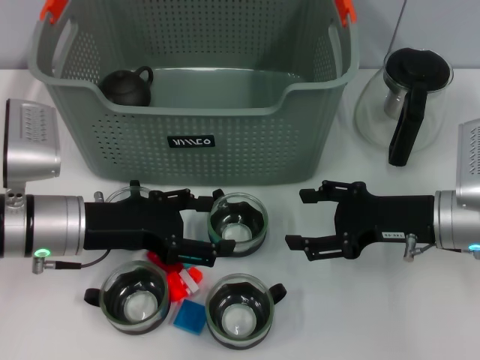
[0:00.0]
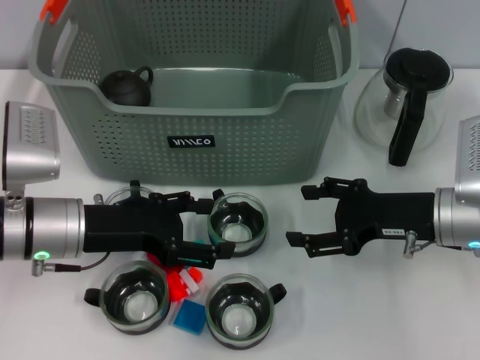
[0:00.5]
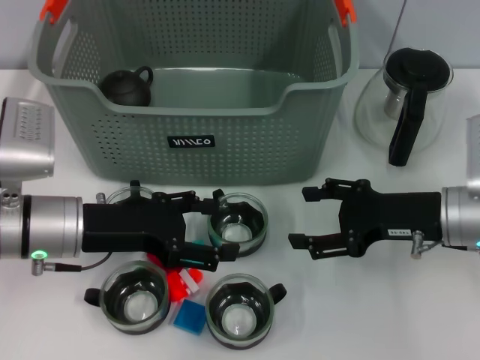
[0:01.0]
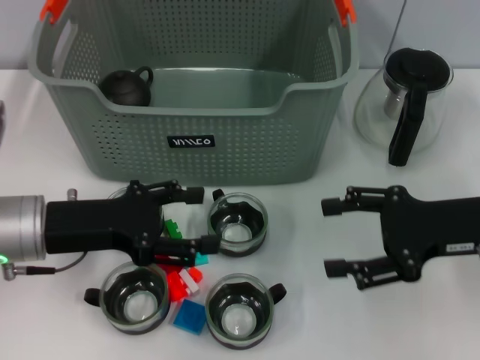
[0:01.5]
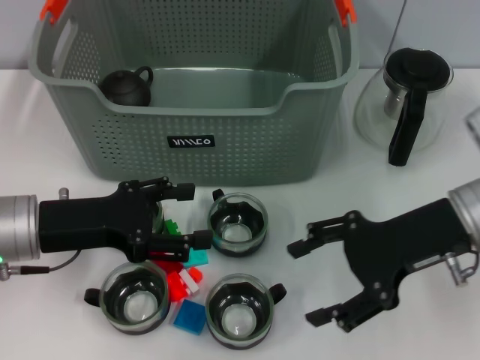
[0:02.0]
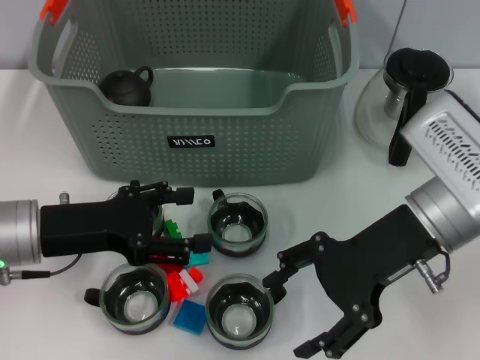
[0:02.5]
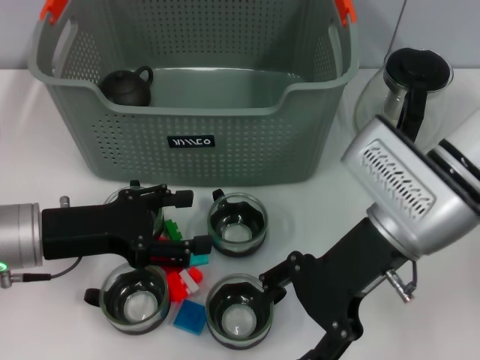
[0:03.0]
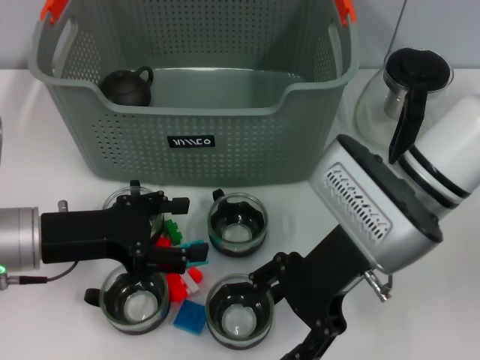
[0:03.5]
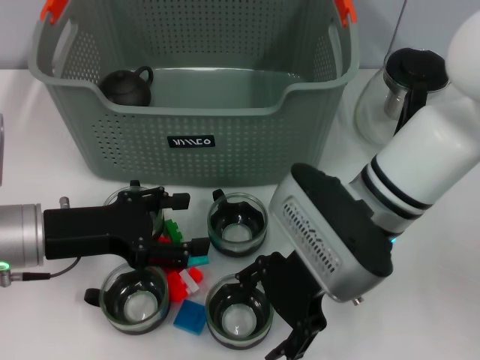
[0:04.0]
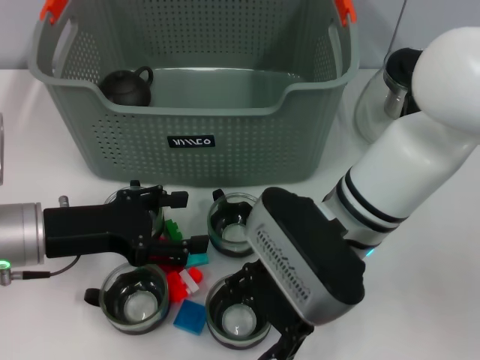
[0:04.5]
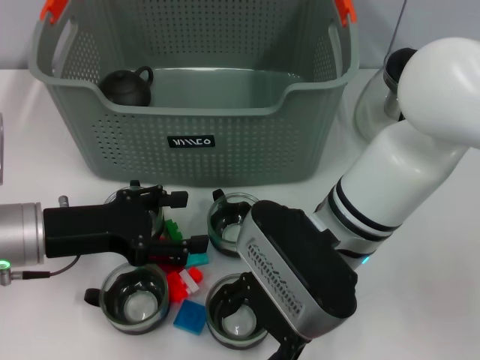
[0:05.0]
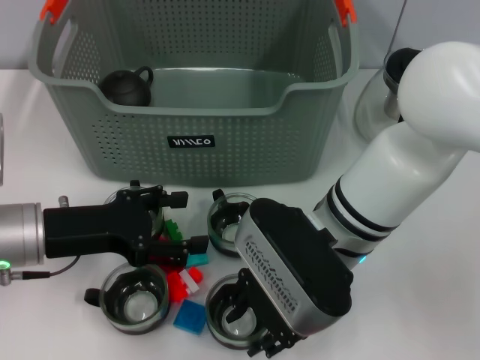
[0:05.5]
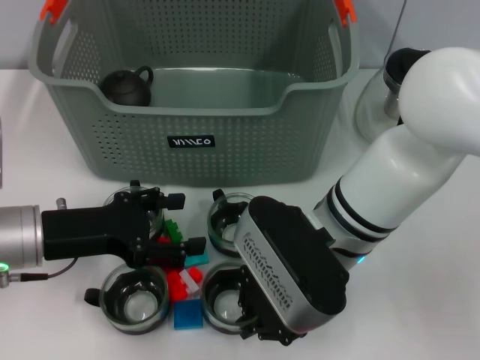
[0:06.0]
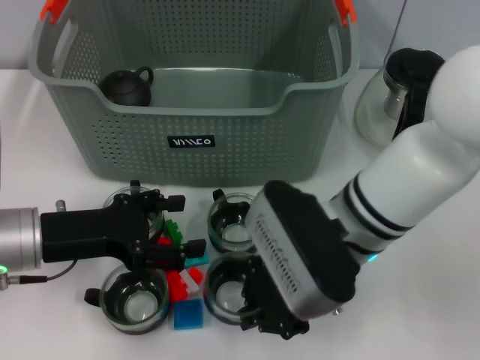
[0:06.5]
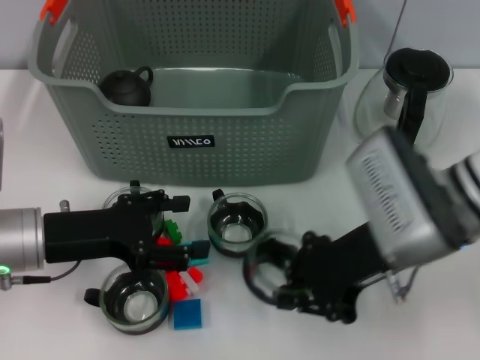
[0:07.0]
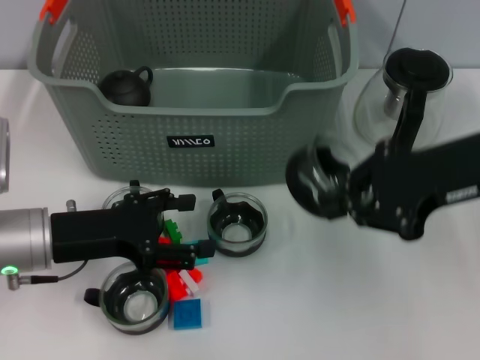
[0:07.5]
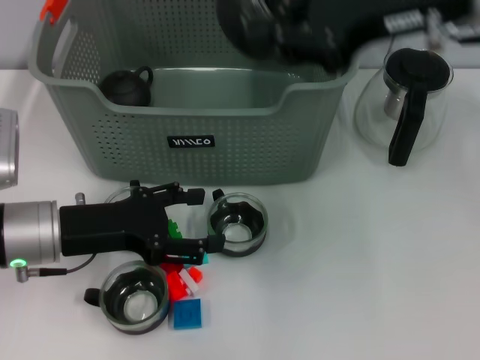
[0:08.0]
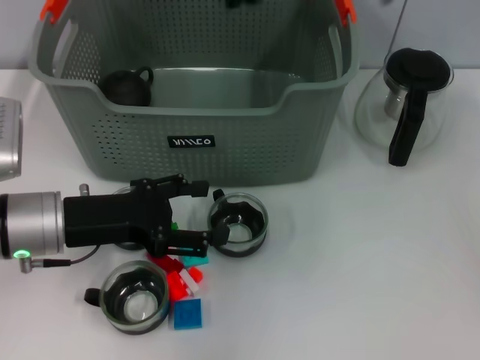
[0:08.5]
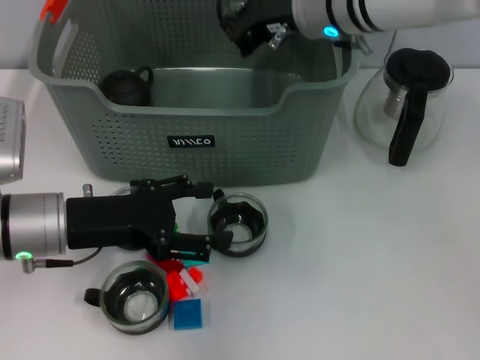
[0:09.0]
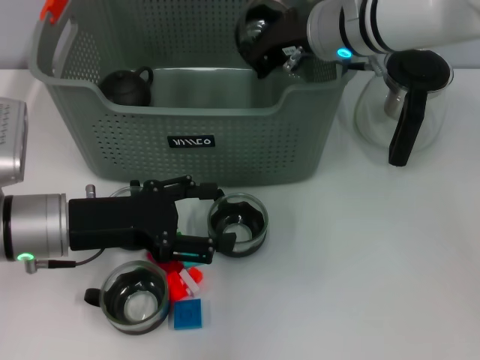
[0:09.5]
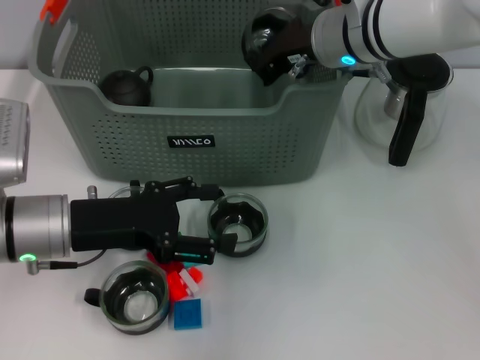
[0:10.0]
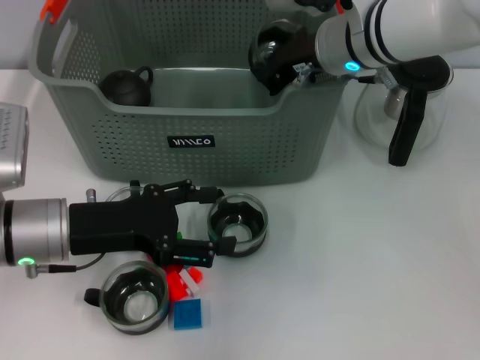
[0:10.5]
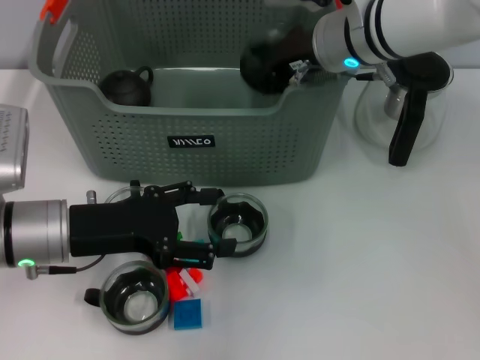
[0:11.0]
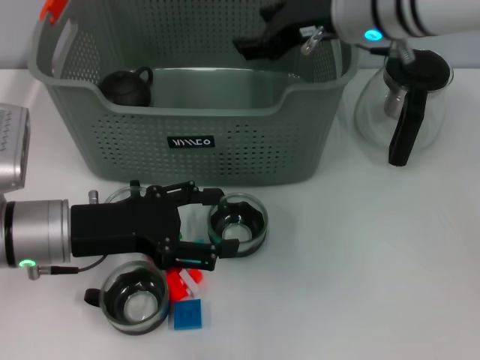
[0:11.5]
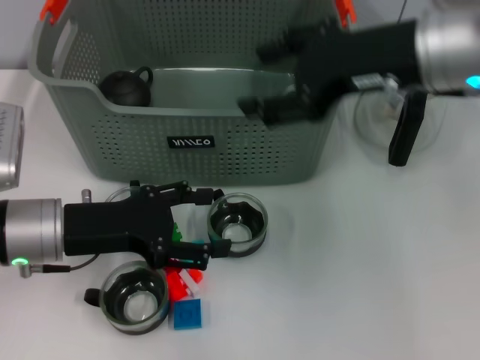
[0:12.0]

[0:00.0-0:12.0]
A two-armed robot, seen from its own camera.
Task of the whole recording: pick up the teacup on the table and place it into the storage bin, pick up the block on the table and place it into the storage bin.
Step, 0.0 to 6.0 s: Grasp the cup with right gripper.
Step, 6.5 to 11.0 s: Place the cup in the storage box with right gripper.
0.0 to 2.0 s: The right gripper moves upward, about 5 cm.
2.0 to 4.0 s: The right gripper shifts some 10 cm to the left.
4.0 to 6.0 s: The right gripper closes up.
6.0 to 8.0 s: The right gripper is displaced upward and to the right by approximately 20 cm.
8.0 to 10.0 s: The right gripper shifts some 15 cm downward, forward and to the left.
10.0 to 12.0 s: The right gripper heads backward, upward and to the right, covering some 15 cm, and opens.

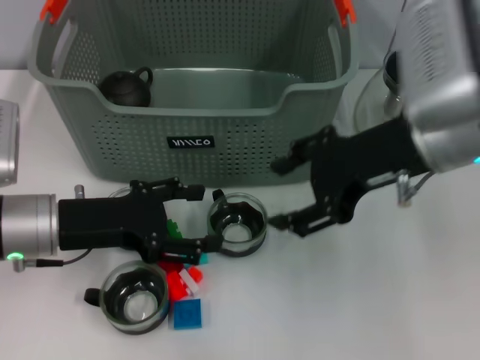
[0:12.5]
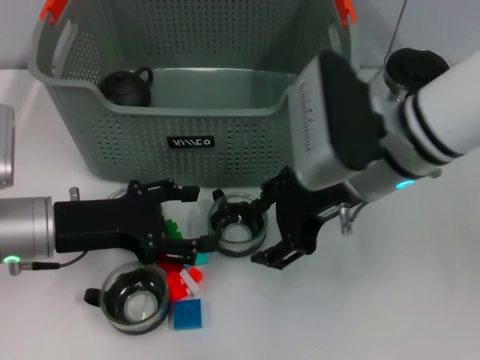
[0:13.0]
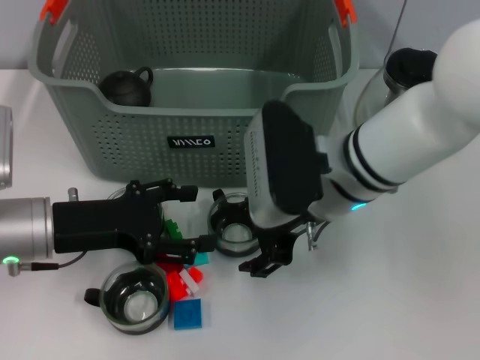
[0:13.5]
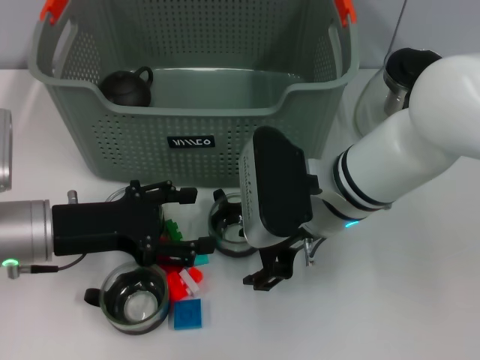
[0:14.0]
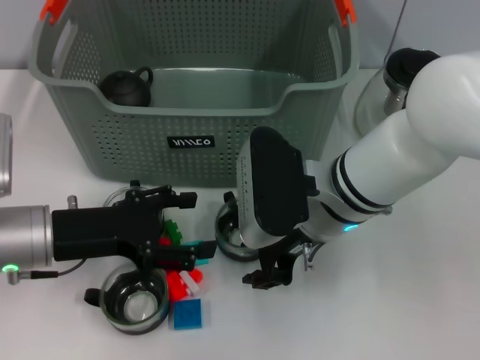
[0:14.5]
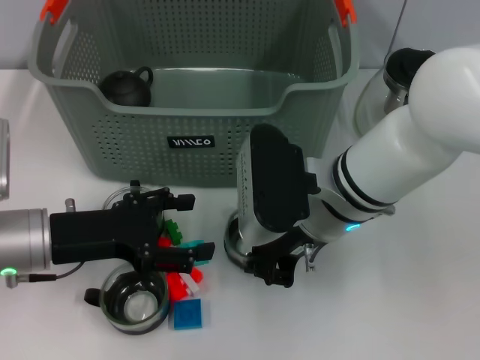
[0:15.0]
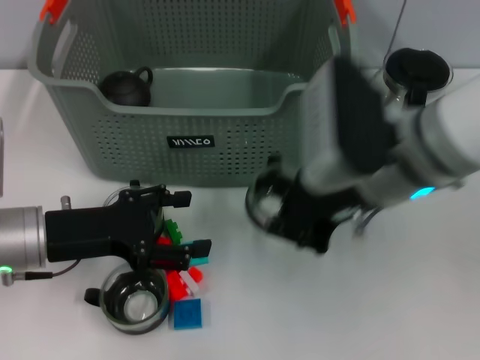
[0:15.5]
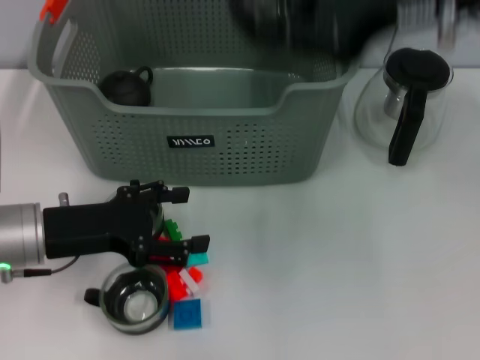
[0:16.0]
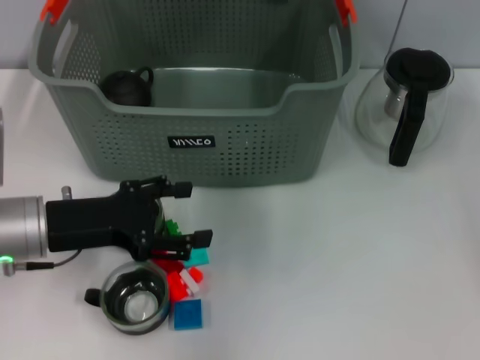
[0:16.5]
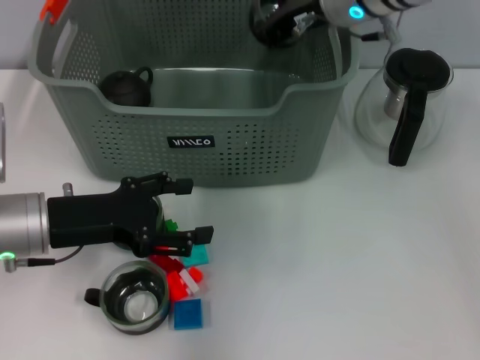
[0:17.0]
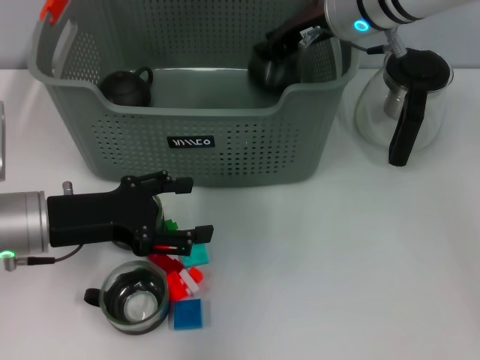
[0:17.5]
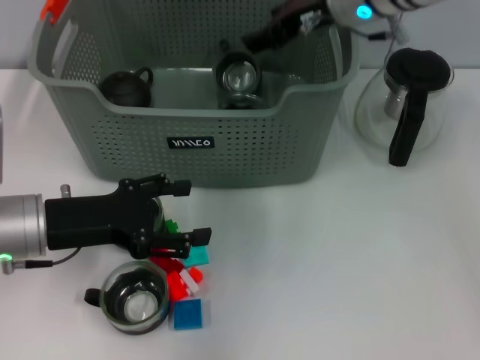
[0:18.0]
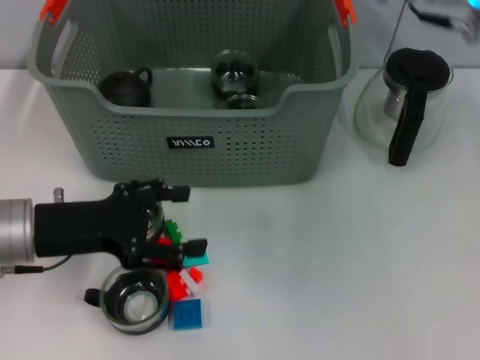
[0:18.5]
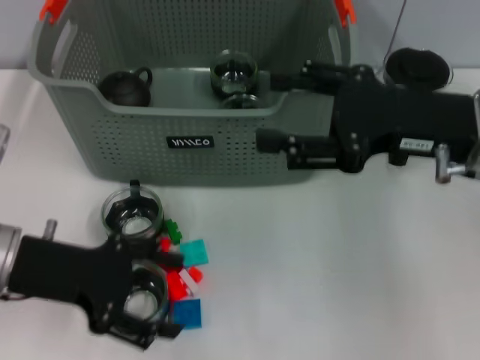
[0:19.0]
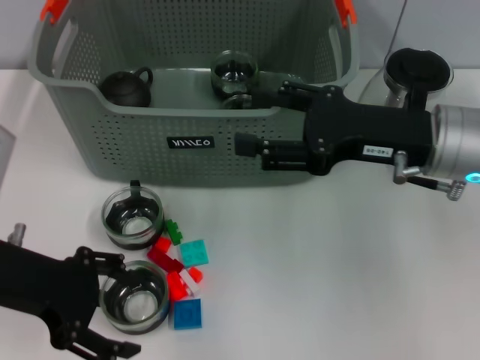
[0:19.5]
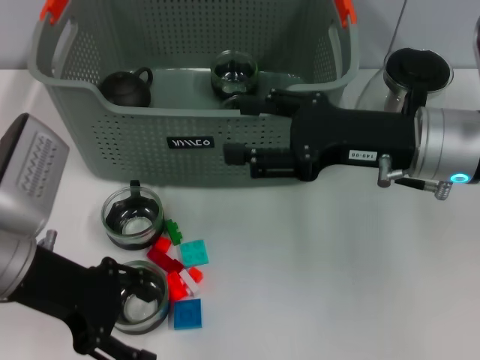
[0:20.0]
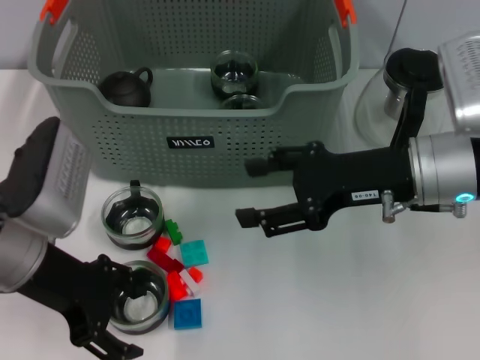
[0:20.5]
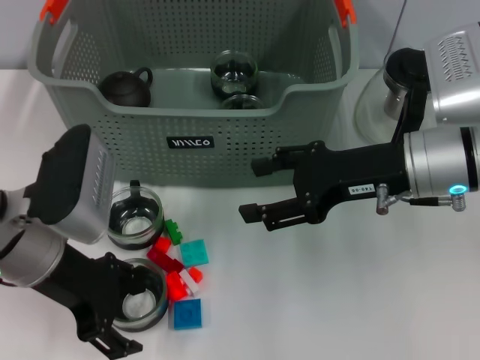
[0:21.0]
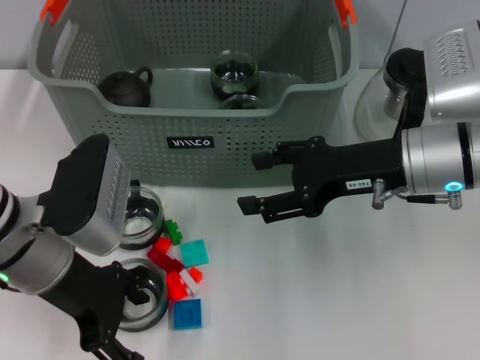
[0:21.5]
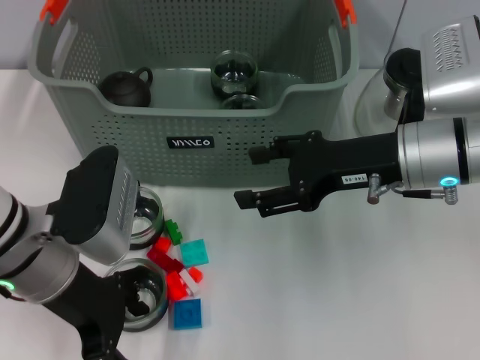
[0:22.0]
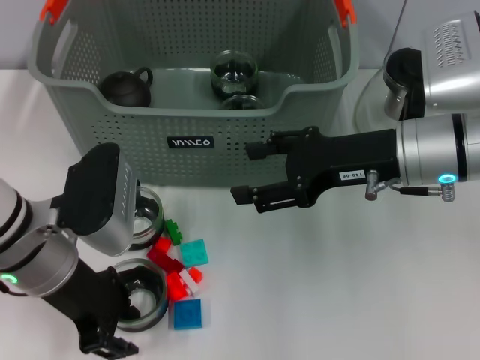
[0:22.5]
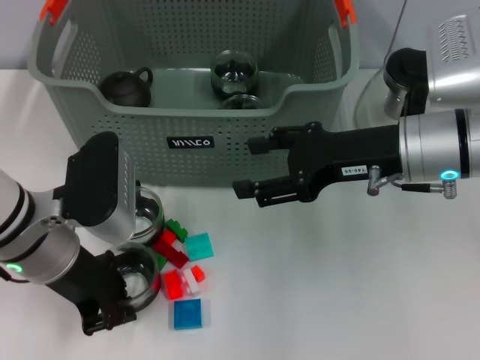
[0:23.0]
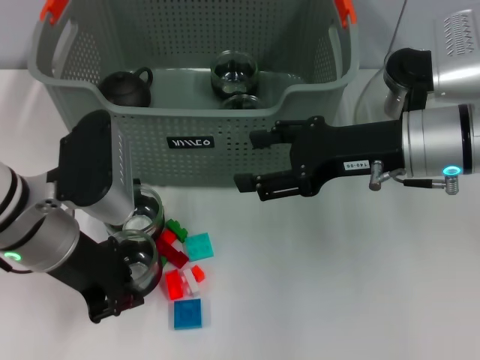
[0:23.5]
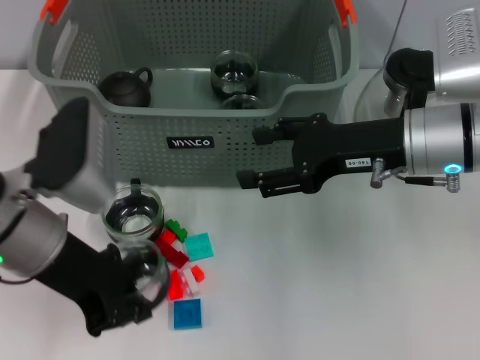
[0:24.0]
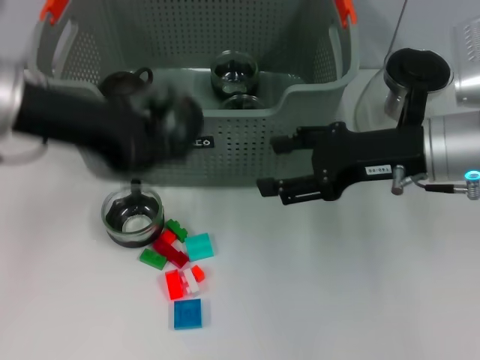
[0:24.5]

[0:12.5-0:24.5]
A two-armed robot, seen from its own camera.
Task of the whole recording: pick up the teacup on the table and place it into the storage bin, pick up the block on the table and place it into the storage bin.
Step, 12.5 to 15.0 s: Grasp the cup with right gripper.
Step, 15.5 to 17.5 s: Place the cup in the storage box with right gripper.
Step, 18.0 to 22.5 s: Grasp the cup with left gripper.
12.5 to 14.5 s: The right gripper moves downward and to the left, about 15 cm.
14.5 to 16.5 s: The right gripper moves upward and forward, some 20 cm, and closes.
16.5 to 18.5 s: The right gripper goes some 5 cm backward, and opens up.
18.5 to 20.5 s: The left gripper changes place by roughly 5 cm, while the right gripper moves downward, approximately 10 cm.
22.5 to 24.5 s: The left gripper heads upward, covering about 10 cm, and closes up.

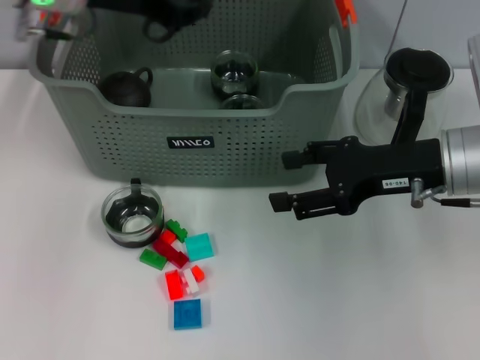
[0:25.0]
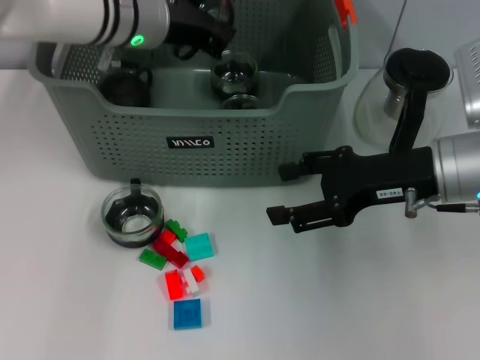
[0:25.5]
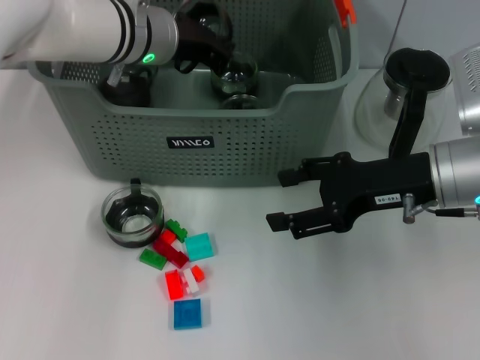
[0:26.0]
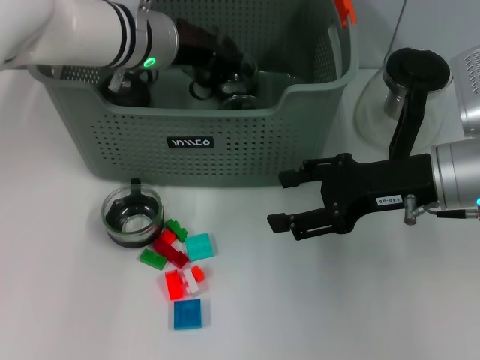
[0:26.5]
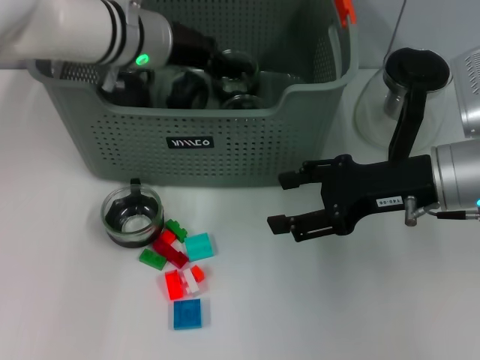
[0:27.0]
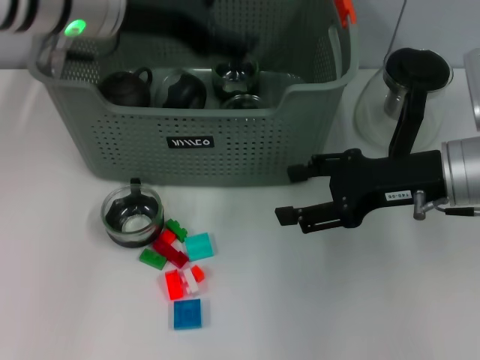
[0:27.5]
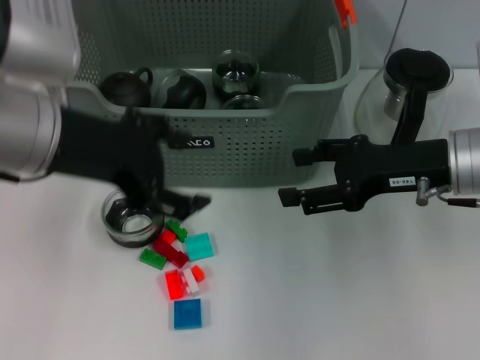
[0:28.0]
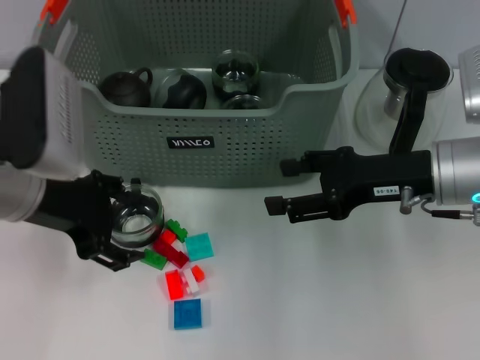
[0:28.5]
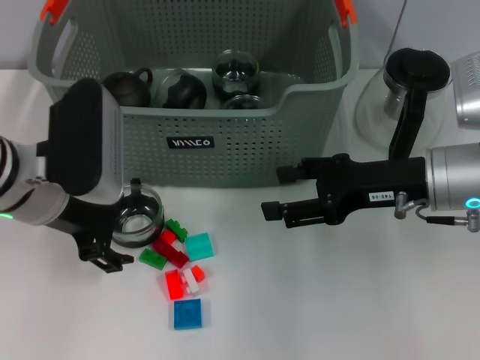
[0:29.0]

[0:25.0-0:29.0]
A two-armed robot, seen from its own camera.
Task of the whole recording: pick up the teacup on the table and place it into the storage bin, pick up the block on the table and place it into the storage bin.
Step, 25.0 to 27.0 s: Place the cup in the storage box with left gripper.
25.0 to 27.0 s: The left gripper travels downward and to the right by roughly 10 cm, and opens up.
27.0 to 29.0 s: The left gripper shifts roughly 15 cm backward and to the left.
